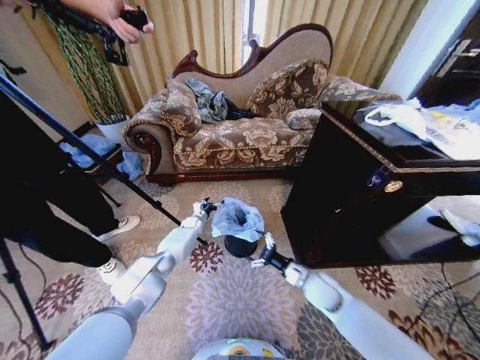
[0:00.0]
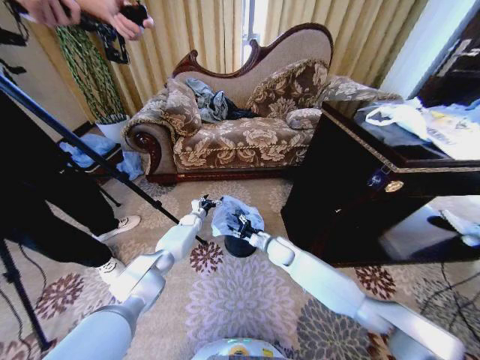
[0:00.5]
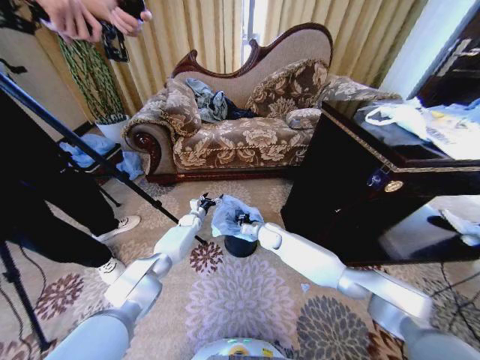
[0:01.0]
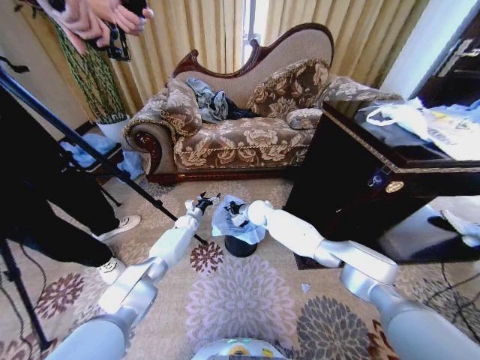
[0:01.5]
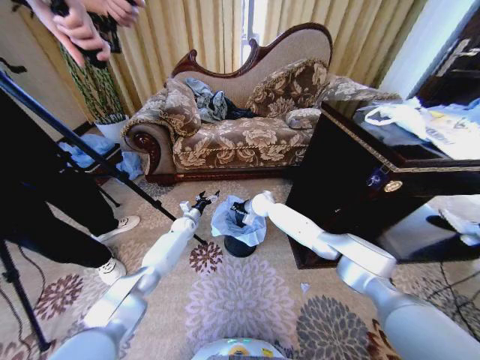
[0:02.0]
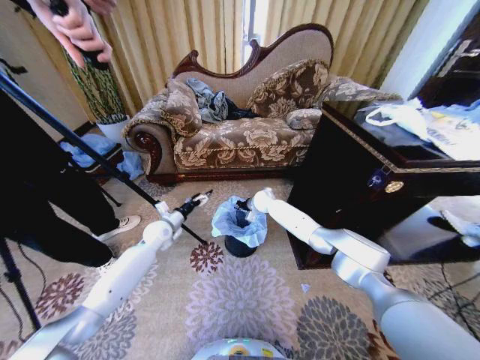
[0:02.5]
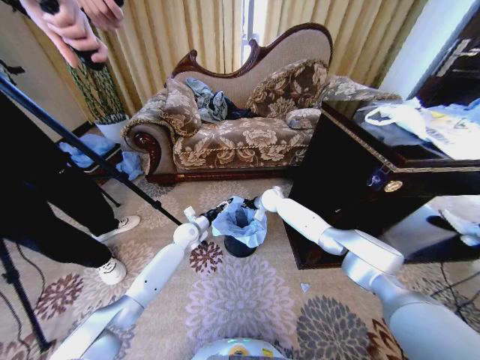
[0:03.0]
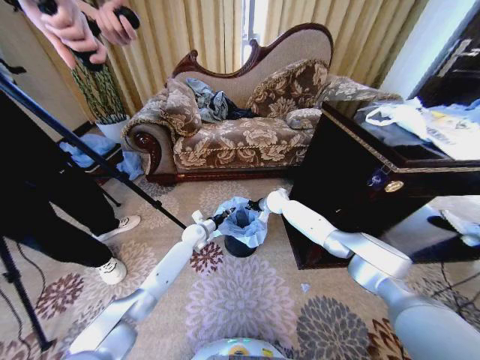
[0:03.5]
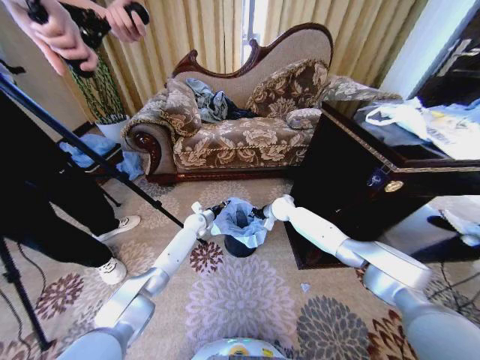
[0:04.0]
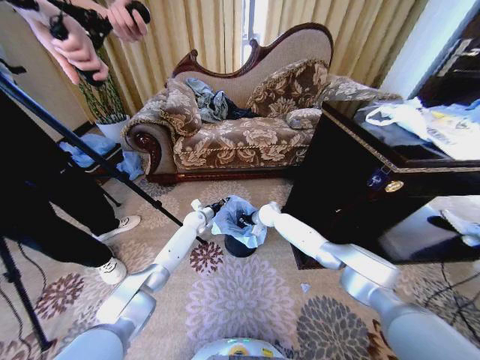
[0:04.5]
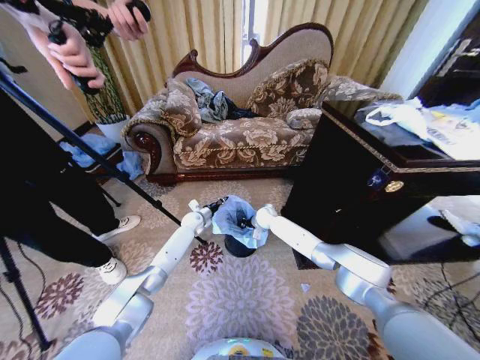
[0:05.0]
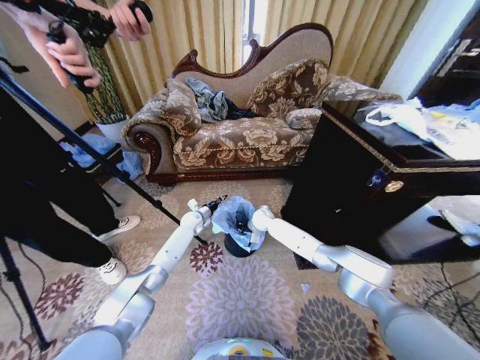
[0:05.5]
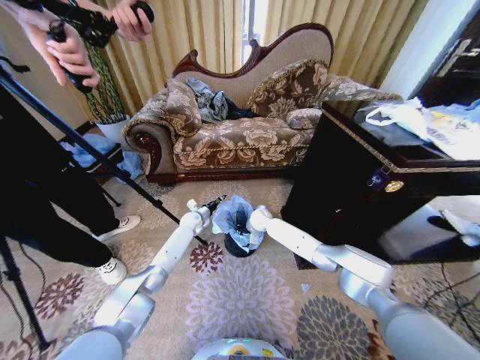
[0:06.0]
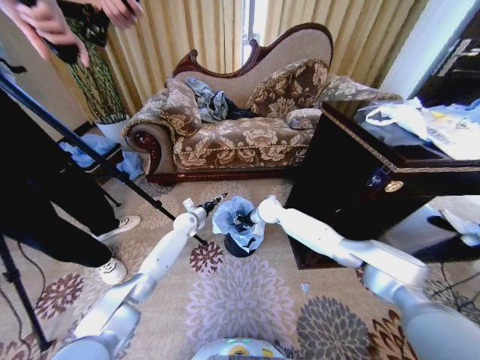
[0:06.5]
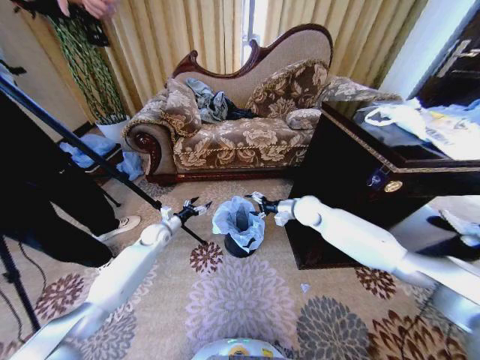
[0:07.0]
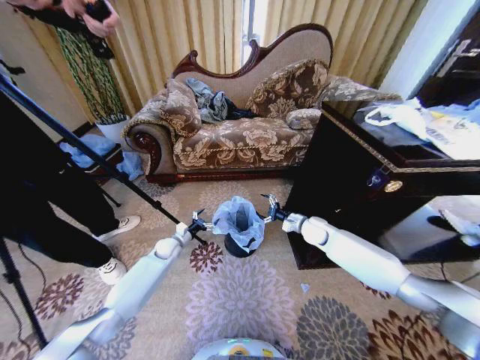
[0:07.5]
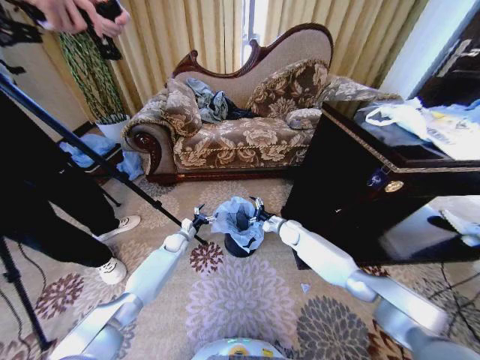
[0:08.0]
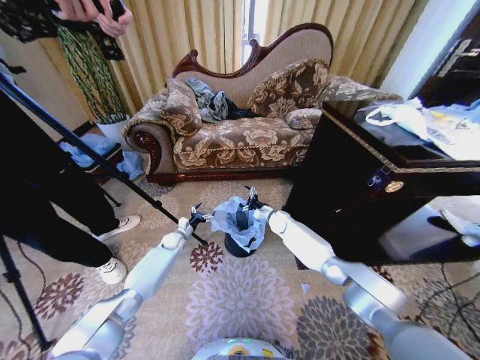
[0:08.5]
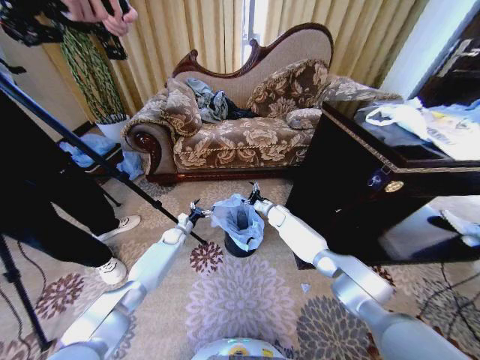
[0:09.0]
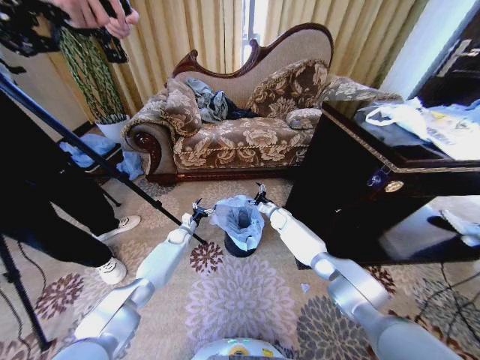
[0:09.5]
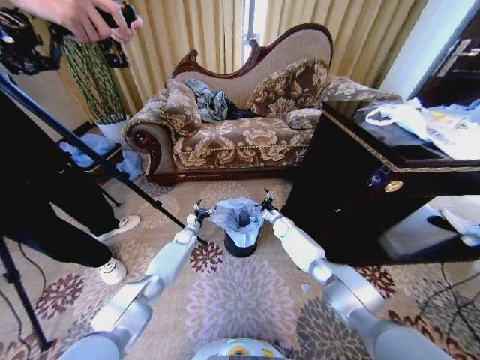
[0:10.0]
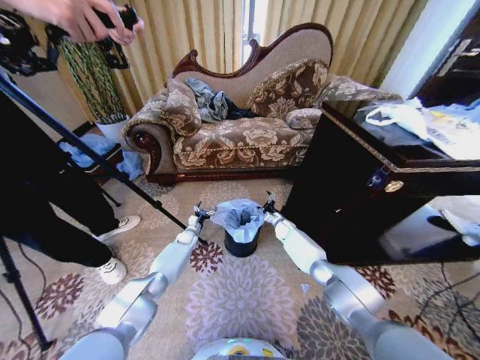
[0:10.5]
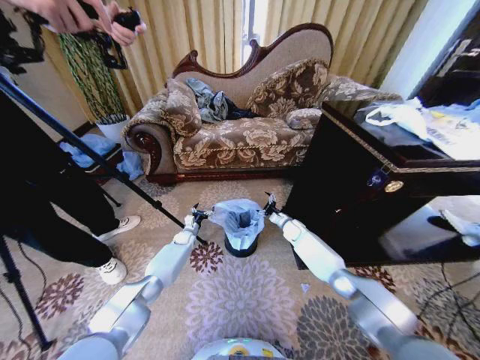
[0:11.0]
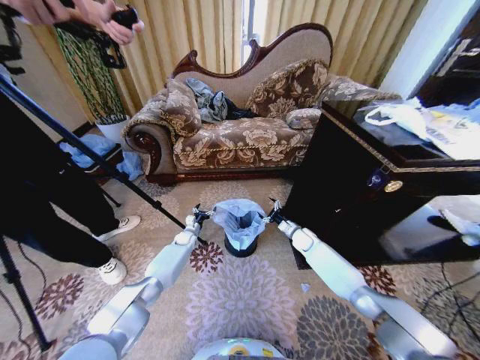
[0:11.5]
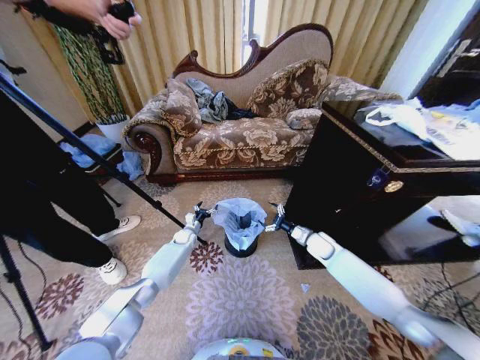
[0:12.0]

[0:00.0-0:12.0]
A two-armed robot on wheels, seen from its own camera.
Task of the whole recording: Place a garbage bag over the trash bin.
0:00.0 to 0:02.0: The right gripper heads forward and to the left, covering some 30 cm, and closes its fingers.
0:02.0 to 0:04.0: The grippers both shift to the right by about 5 cm. The left gripper closes up.
0:04.0 to 0:06.0: The right gripper shifts approximately 10 cm to the left.
0:06.0 to 0:08.0: The right gripper is displaced to the right by roughly 10 cm, and opens. Meanwhile the left gripper shifts some 10 cm backward, to the left and downward, and opens up.
0:08.0 to 0:10.0: The left gripper shifts by about 5 cm. Meanwhile the right gripper heads forward, covering roughly 5 cm.
0:10.0 to 0:12.0: The right gripper heads backward, to the right and upward, covering approximately 15 cm.

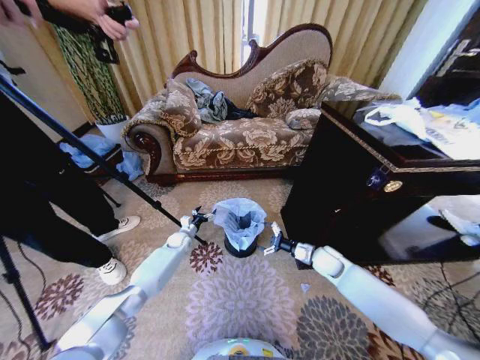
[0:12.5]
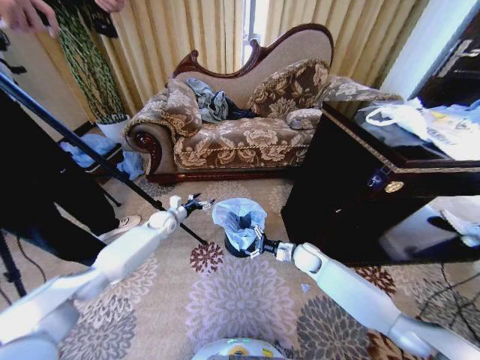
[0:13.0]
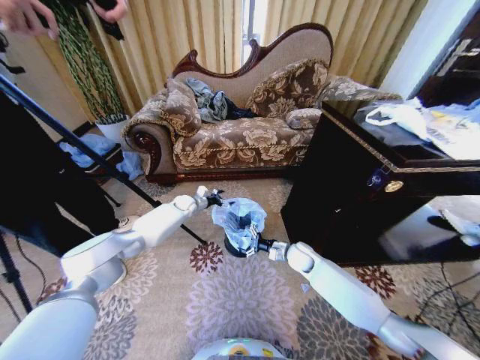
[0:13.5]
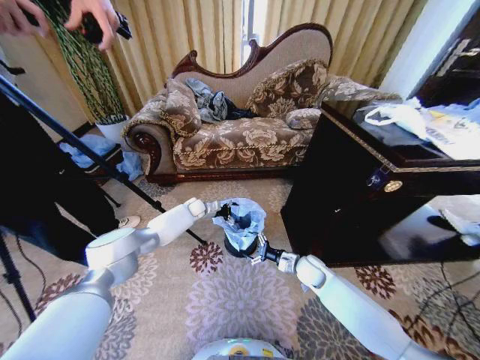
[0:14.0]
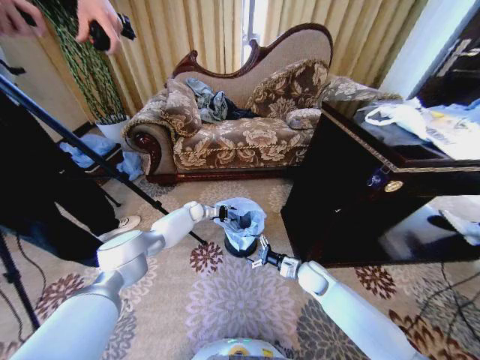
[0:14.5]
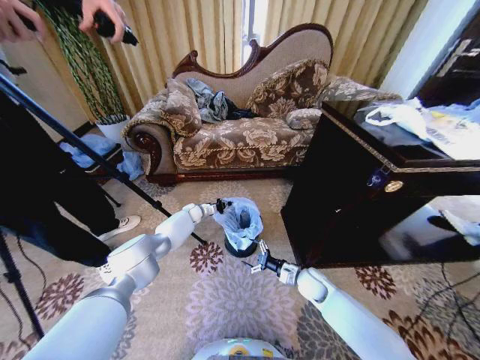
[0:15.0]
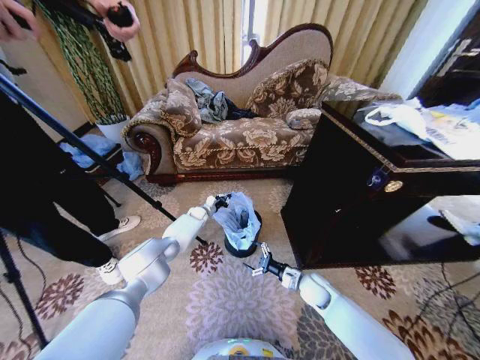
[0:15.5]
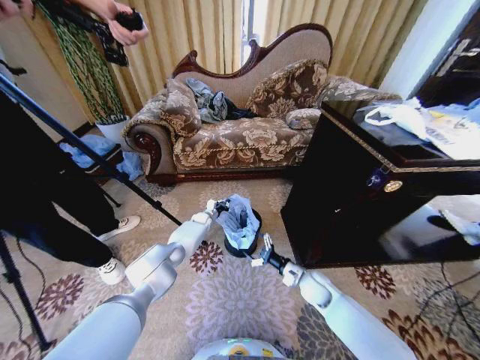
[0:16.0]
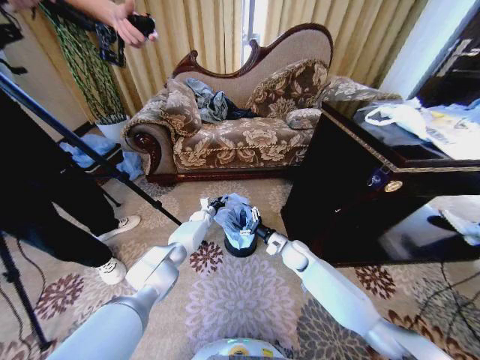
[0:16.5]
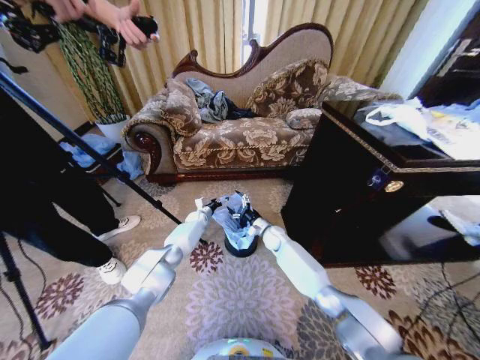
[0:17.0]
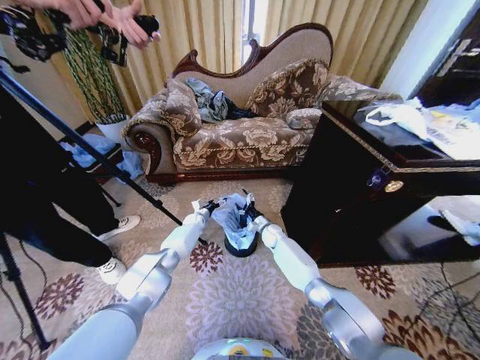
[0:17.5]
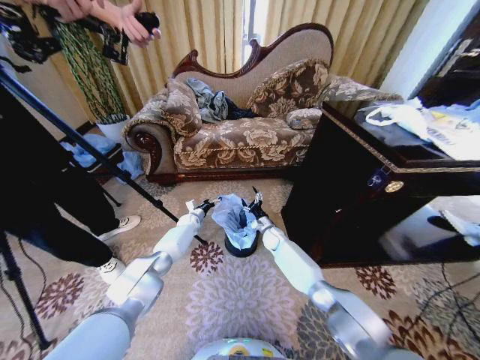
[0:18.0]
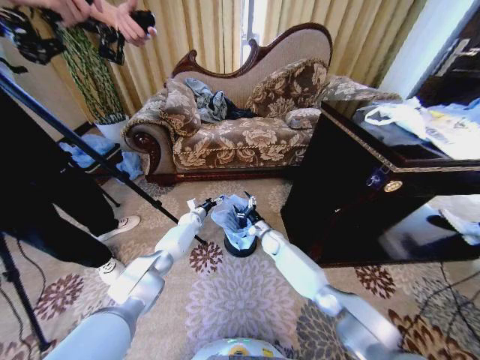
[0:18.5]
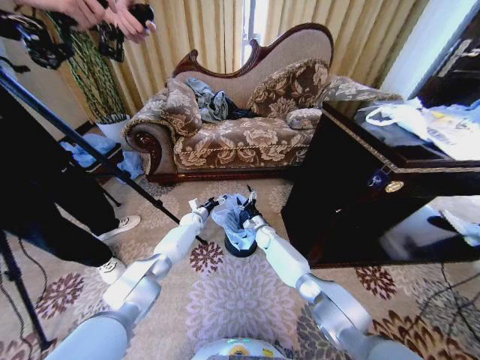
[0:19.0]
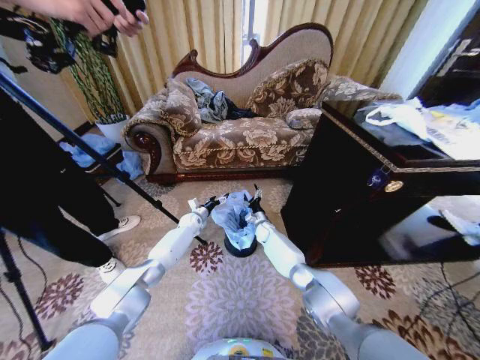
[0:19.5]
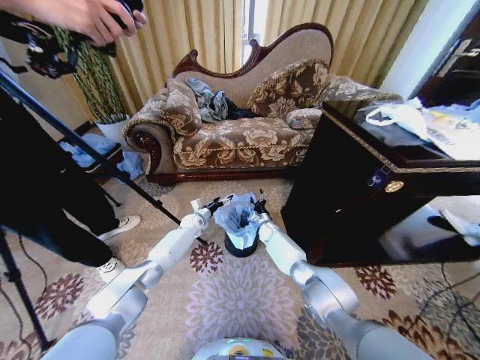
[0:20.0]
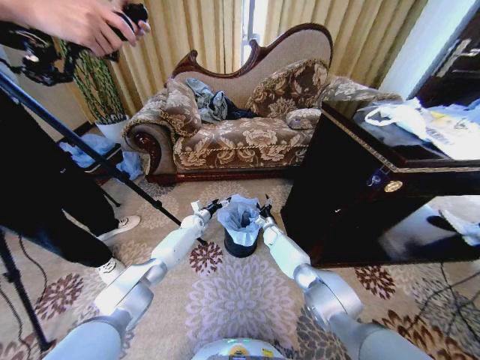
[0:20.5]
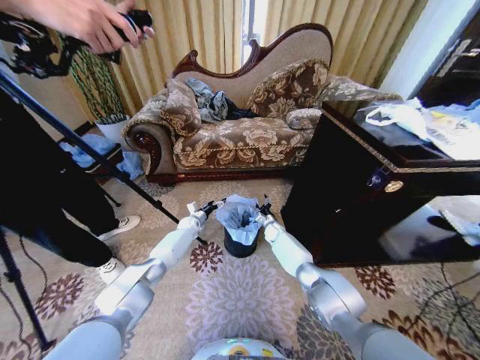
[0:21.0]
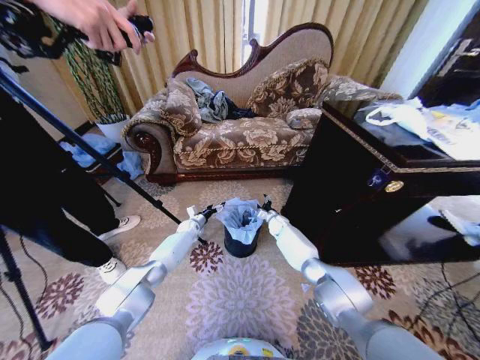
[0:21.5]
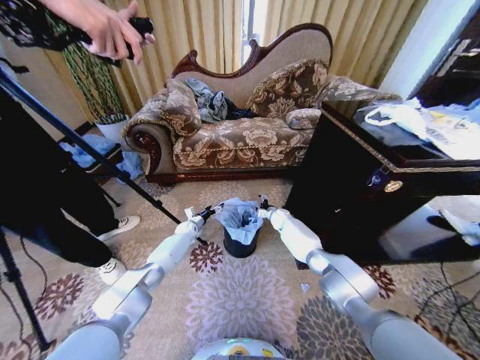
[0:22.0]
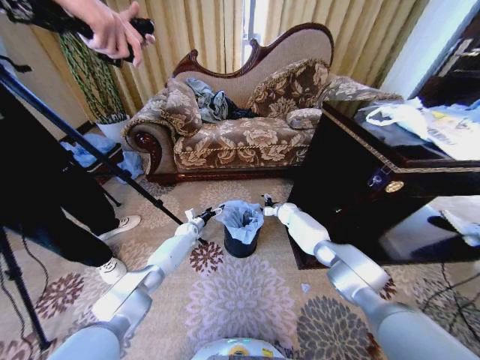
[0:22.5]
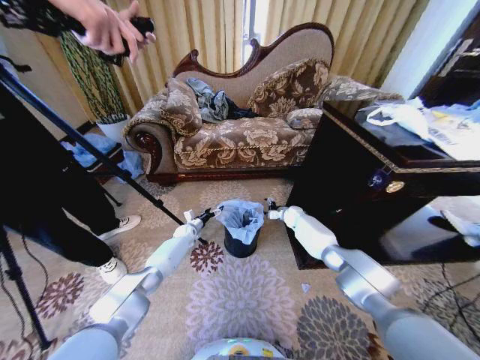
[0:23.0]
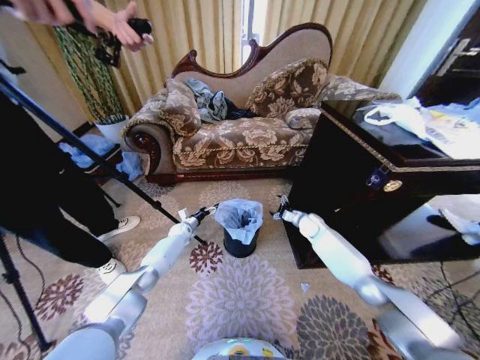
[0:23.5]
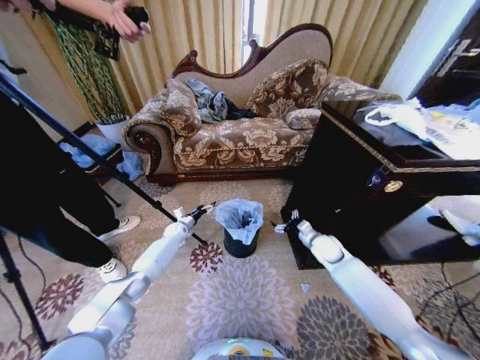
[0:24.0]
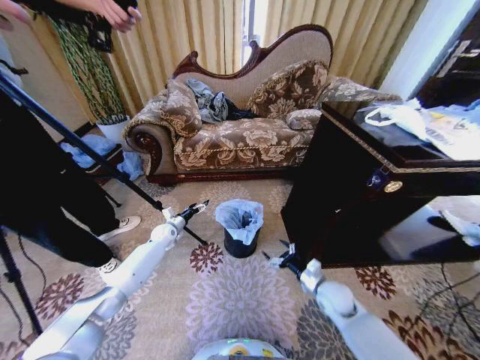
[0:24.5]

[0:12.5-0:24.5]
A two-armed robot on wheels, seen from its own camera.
Task of the whole recording: Place a garbage bag over the trash bin.
0:12.5 to 0:14.5: The left gripper heads forward and upward, covering some 15 cm, and closes up. Meanwhile the right gripper travels to the left by approximately 5 cm.
0:14.5 to 0:16.5: The left gripper ends up about 5 cm from where it was, and closes and opens again; the right gripper heads forward, covering about 5 cm.
0:16.5 to 0:18.5: The right gripper travels forward, to the left and downward by some 10 cm. Meanwhile the left gripper heads to the left, covering roughly 5 cm, and opens.
0:18.5 to 0:20.5: The right gripper moves forward, some 5 cm.
0:20.5 to 0:22.5: The right gripper travels upward, to the right and forward by about 15 cm.
0:22.5 to 0:24.5: The right gripper goes about 35 cm backward; the left gripper is displaced to the left, upward and backward by roughly 10 cm.

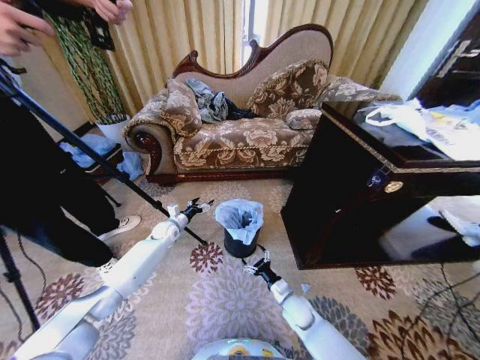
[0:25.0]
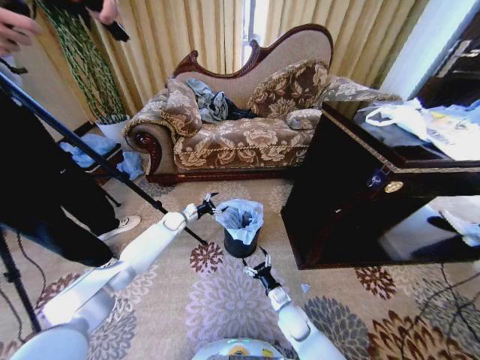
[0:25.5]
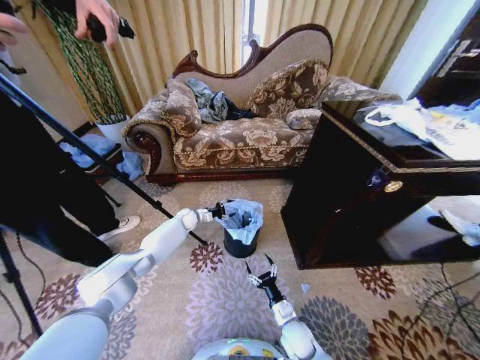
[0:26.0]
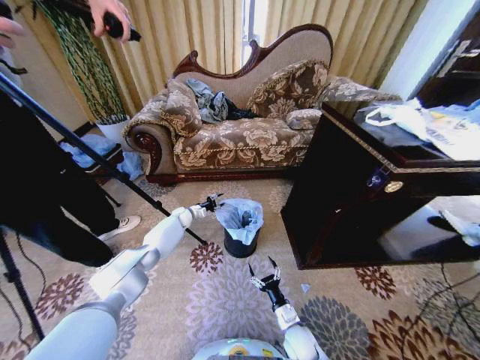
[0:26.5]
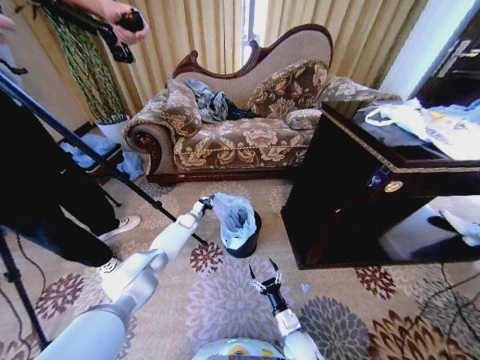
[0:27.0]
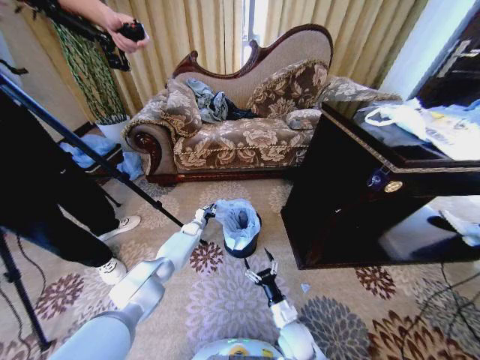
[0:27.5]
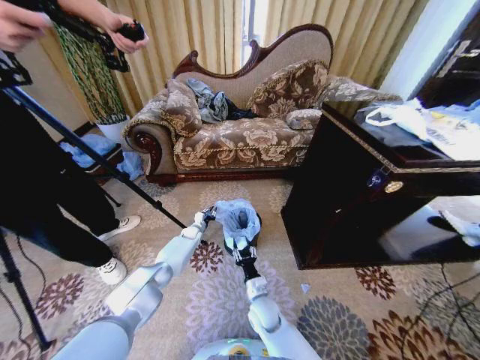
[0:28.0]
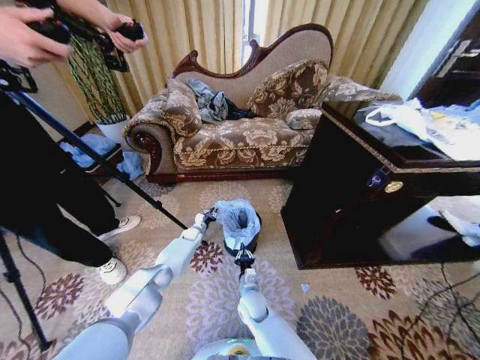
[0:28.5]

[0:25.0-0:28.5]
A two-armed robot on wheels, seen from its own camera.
Task of the whole recording: Place a garbage bag over the trash bin.
0:25.0 to 0:27.0: The left gripper is displaced forward and downward by about 10 cm, and closes. The right gripper moves backward, roughly 10 cm.
0:27.0 to 0:28.5: The right gripper heads to the left and forward, covering roughly 20 cm, and closes its fingers. The left gripper moves downward, some 5 cm.
